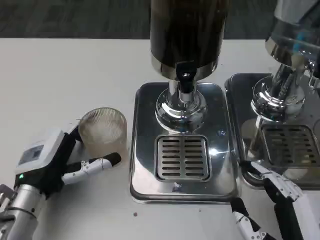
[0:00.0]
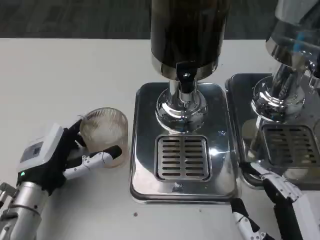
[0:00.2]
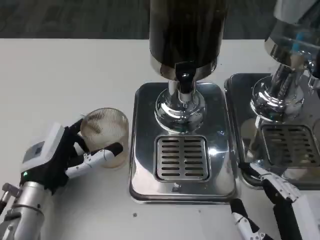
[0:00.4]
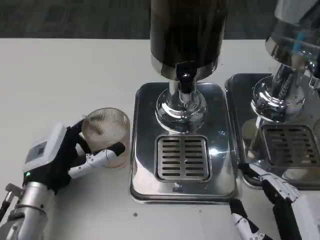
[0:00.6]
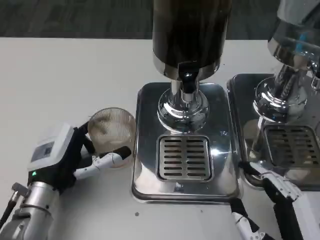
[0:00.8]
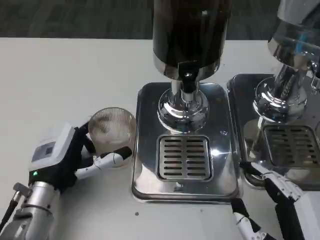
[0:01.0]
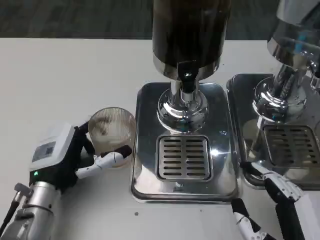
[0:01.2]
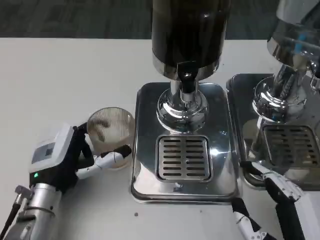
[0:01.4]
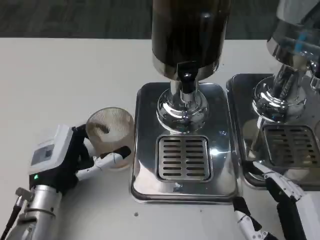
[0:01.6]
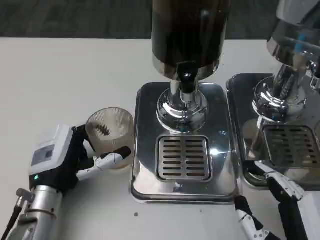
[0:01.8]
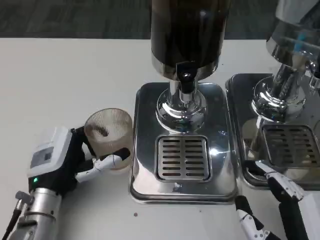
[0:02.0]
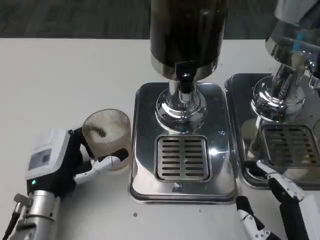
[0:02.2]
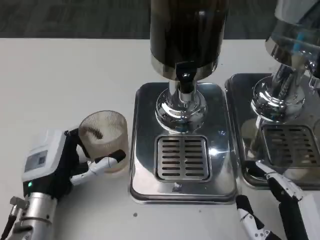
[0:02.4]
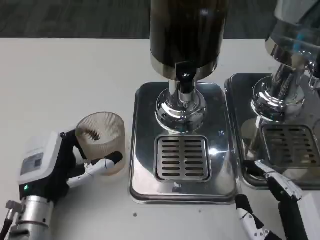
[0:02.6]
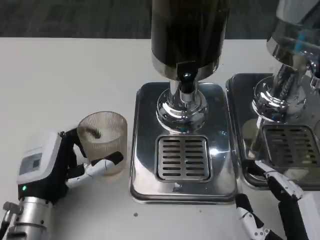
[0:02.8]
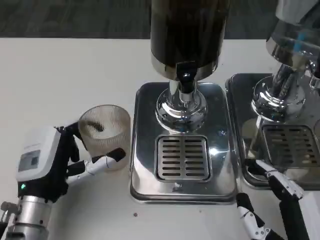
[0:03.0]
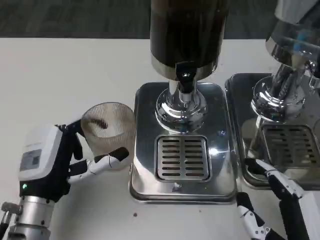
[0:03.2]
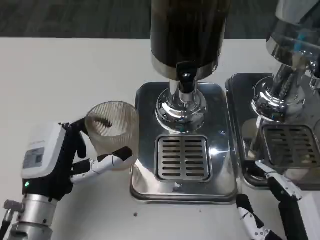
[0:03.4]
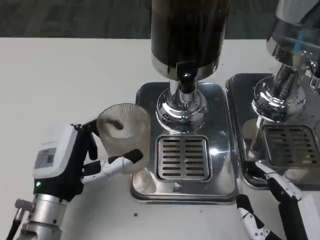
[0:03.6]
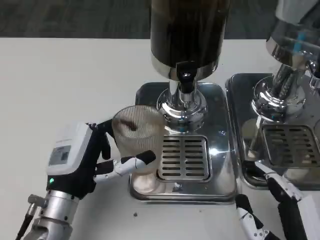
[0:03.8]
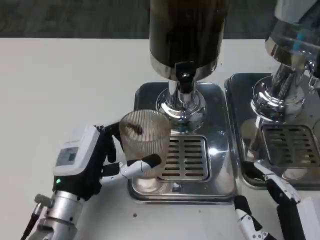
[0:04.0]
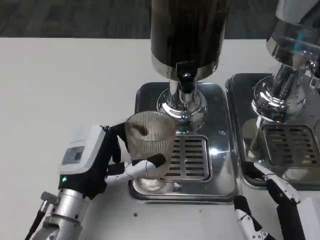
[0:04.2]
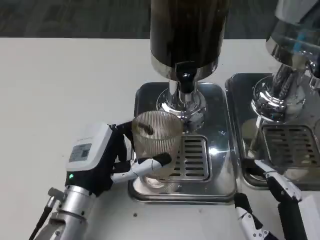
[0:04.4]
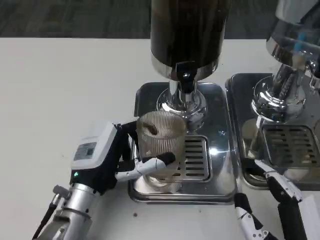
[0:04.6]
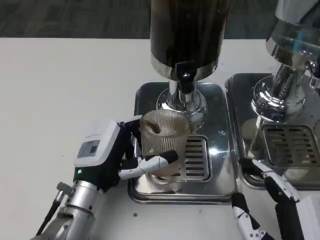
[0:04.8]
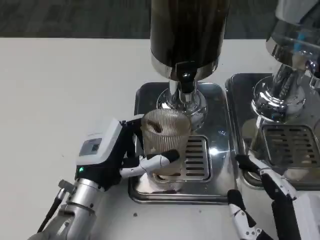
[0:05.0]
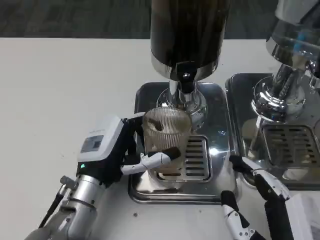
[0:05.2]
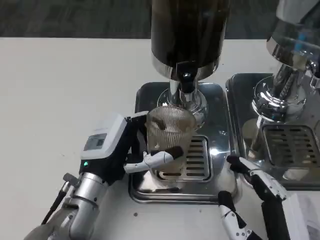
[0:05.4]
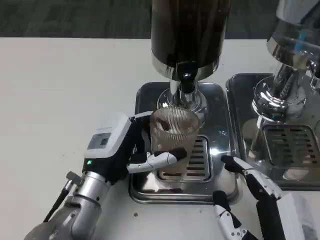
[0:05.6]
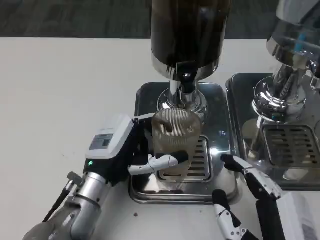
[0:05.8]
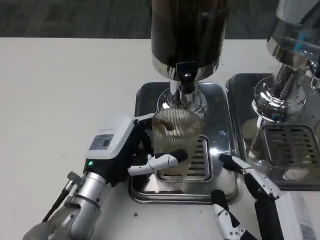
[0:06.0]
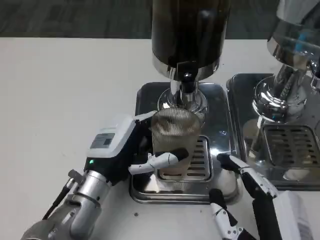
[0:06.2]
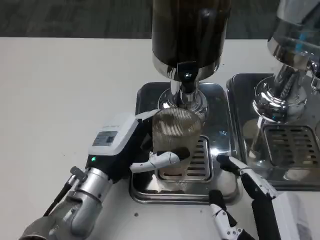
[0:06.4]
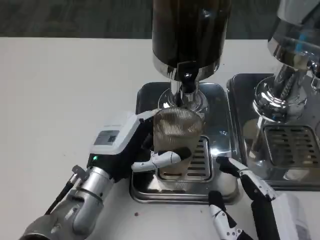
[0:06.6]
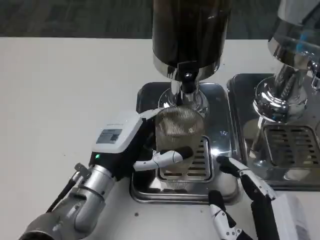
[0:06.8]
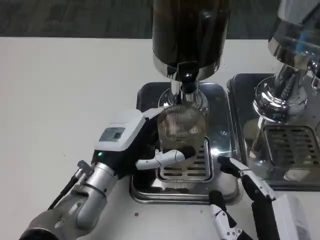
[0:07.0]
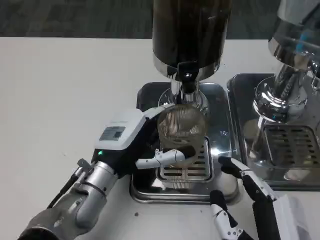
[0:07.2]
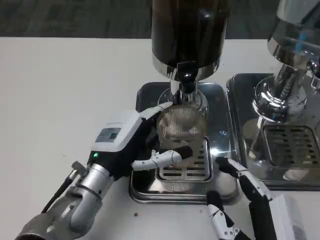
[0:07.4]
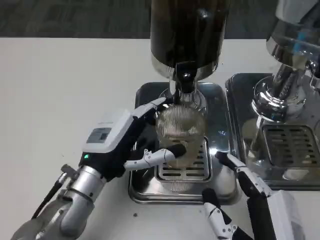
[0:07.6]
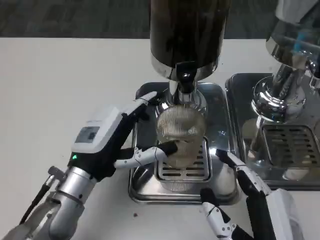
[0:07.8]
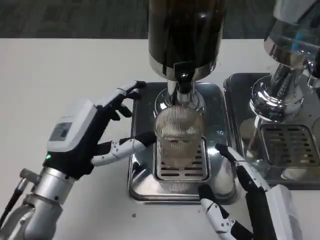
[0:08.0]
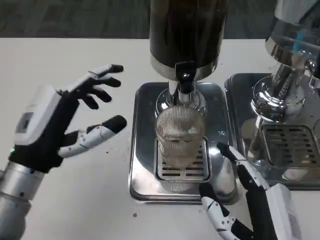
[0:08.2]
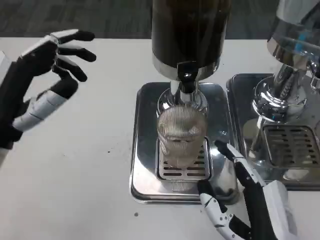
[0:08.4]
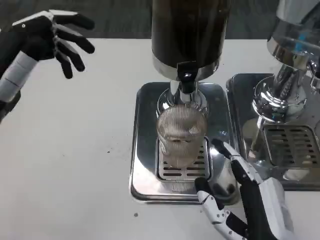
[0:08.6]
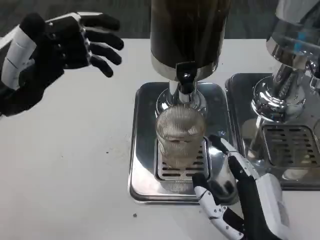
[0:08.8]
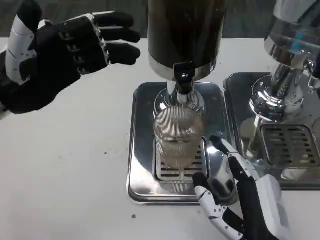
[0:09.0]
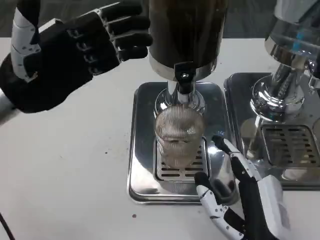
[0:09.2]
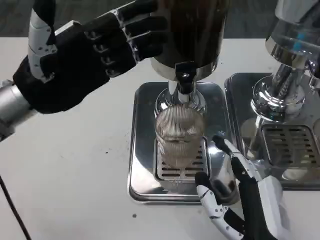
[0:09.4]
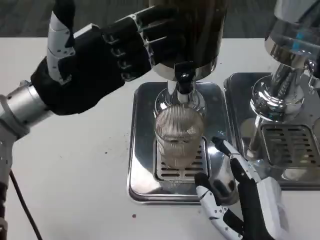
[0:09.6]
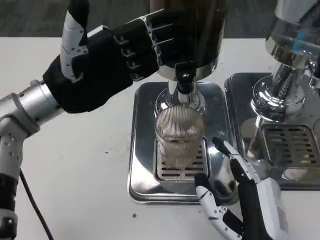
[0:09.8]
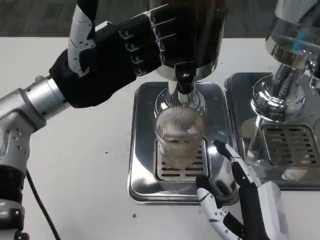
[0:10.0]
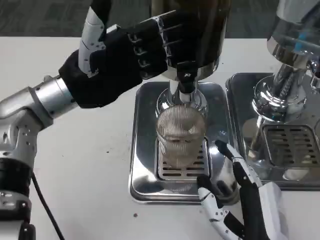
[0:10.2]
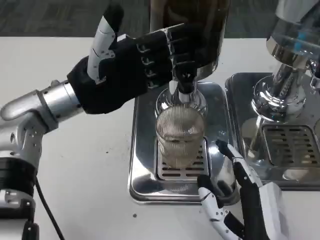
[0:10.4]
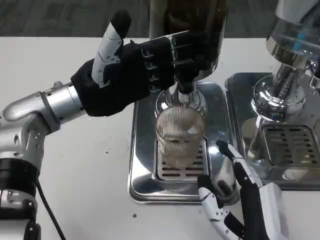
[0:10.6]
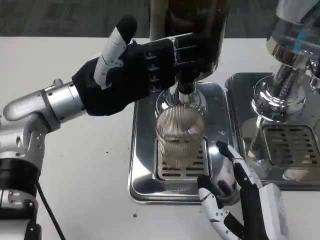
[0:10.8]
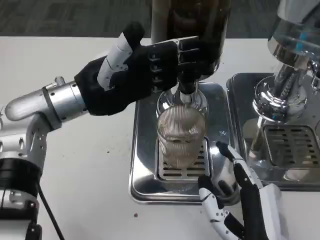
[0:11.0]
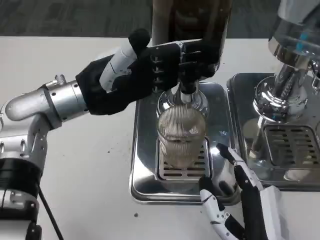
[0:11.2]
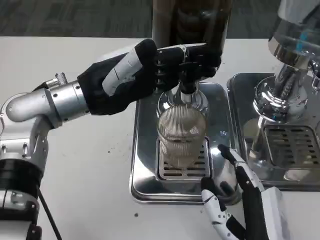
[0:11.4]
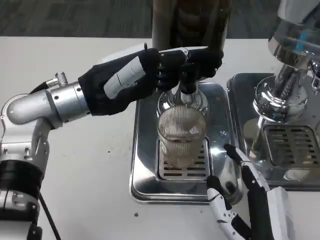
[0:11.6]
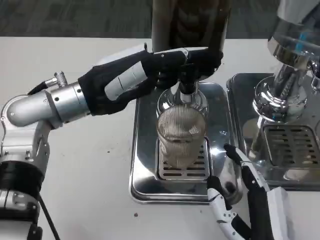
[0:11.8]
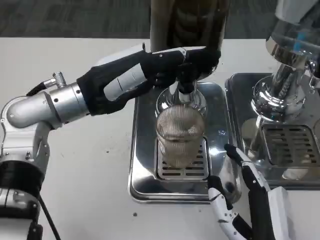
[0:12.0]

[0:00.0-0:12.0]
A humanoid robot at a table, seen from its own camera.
Task of the whole recording: Grasp the cup under the faucet to collect the drink, then remove the cup.
0:00.0 to 0:03.0: The hands make only small movements.
0:03.0 to 0:04.4: The left hand shifts some 5 cm to the right.
0:06.0 to 0:07.6: The hands make only small movements.
0:07.6 to 0:09.0: The left hand shifts roughly 20 cm upward and to the left.
0:09.0 to 0:10.4: The left hand travels to the right by some 5 cm.

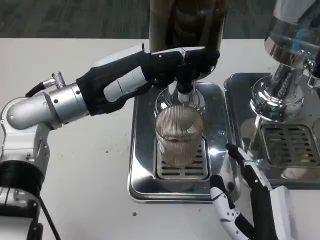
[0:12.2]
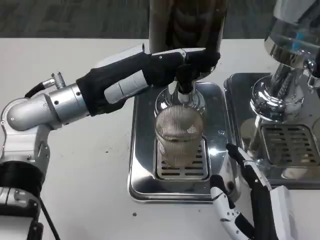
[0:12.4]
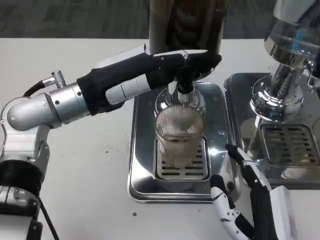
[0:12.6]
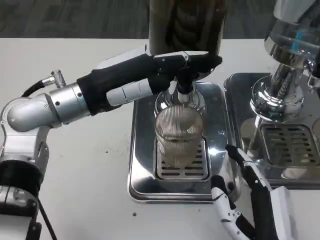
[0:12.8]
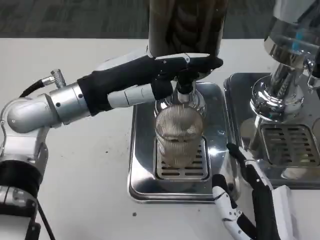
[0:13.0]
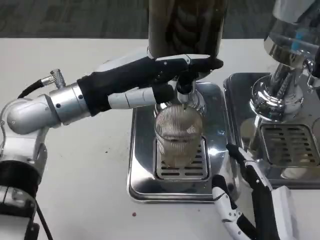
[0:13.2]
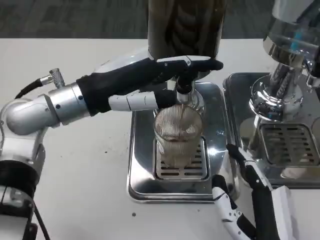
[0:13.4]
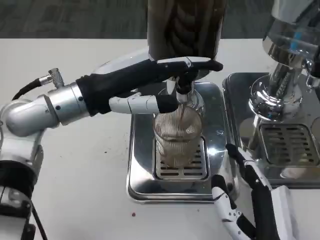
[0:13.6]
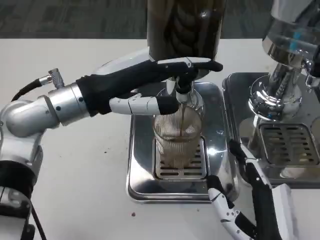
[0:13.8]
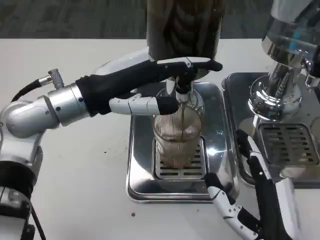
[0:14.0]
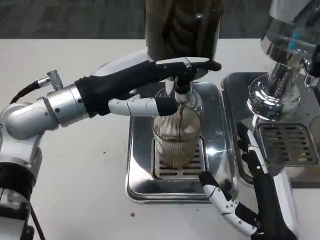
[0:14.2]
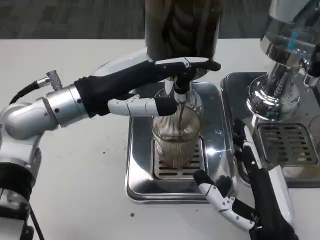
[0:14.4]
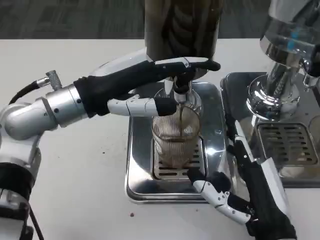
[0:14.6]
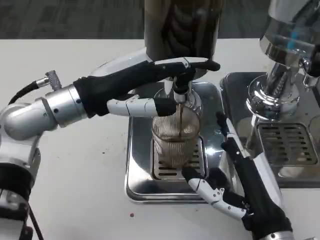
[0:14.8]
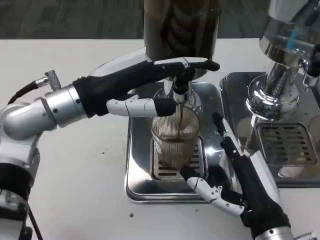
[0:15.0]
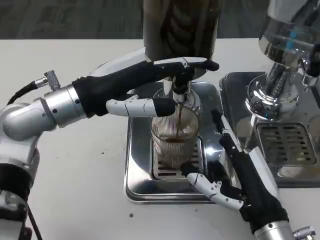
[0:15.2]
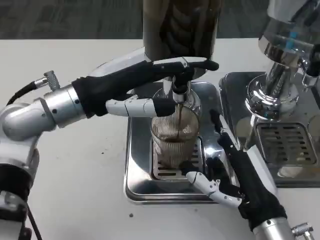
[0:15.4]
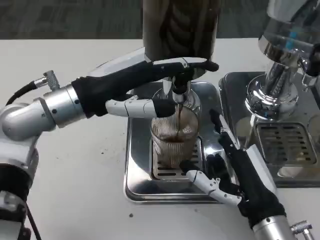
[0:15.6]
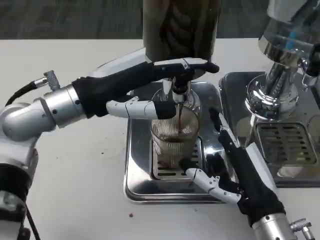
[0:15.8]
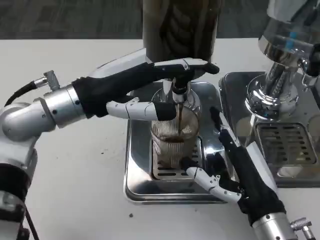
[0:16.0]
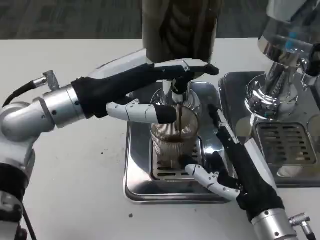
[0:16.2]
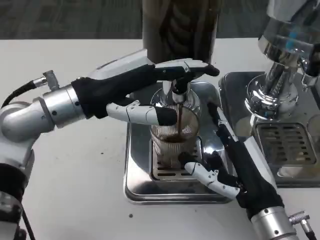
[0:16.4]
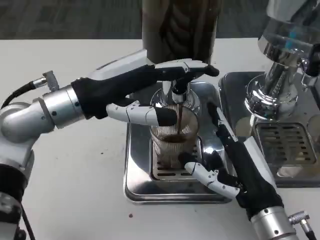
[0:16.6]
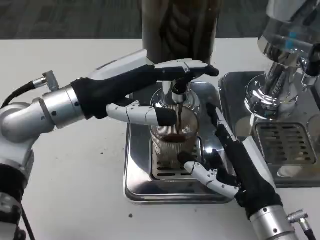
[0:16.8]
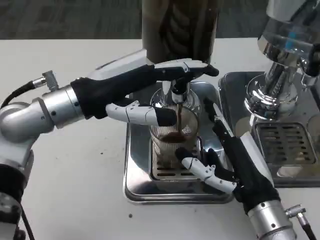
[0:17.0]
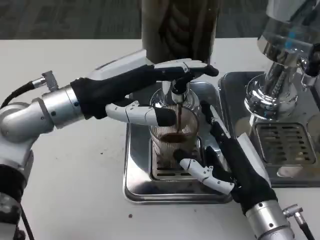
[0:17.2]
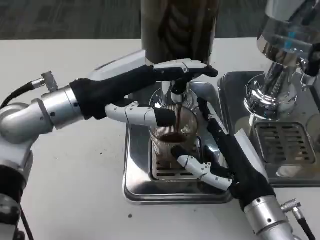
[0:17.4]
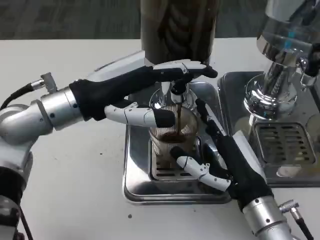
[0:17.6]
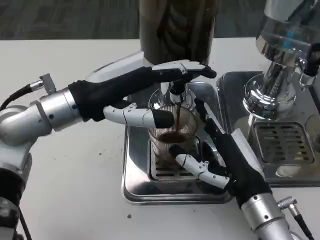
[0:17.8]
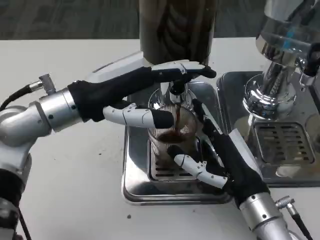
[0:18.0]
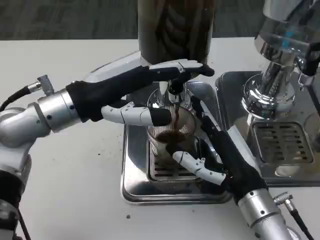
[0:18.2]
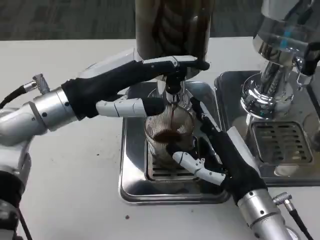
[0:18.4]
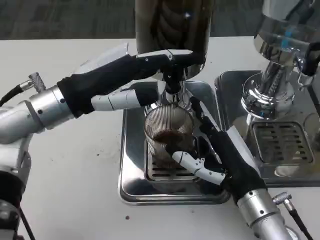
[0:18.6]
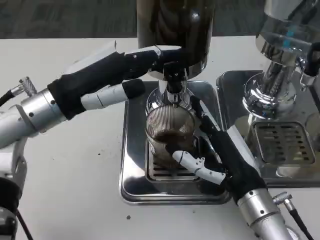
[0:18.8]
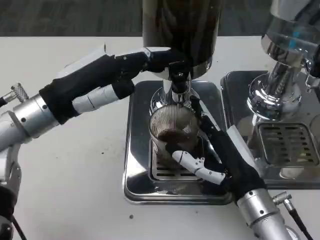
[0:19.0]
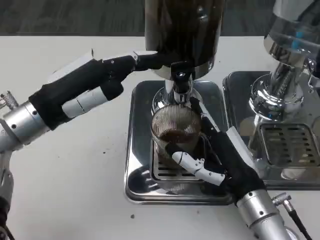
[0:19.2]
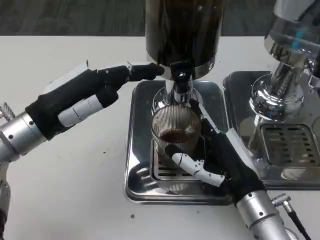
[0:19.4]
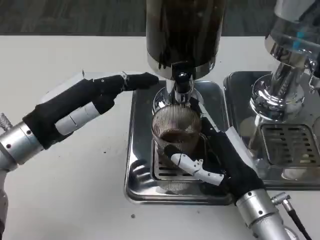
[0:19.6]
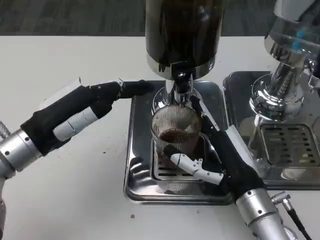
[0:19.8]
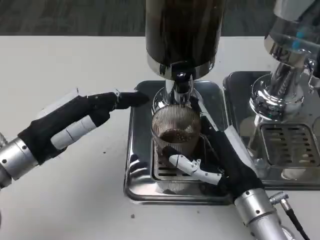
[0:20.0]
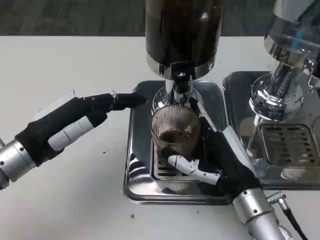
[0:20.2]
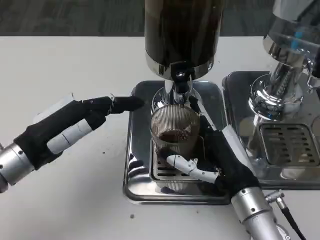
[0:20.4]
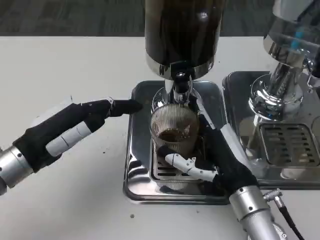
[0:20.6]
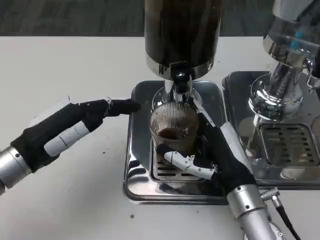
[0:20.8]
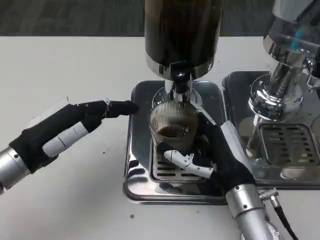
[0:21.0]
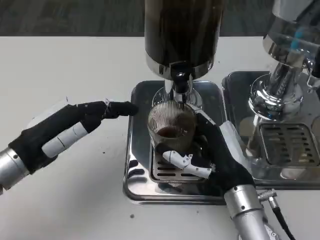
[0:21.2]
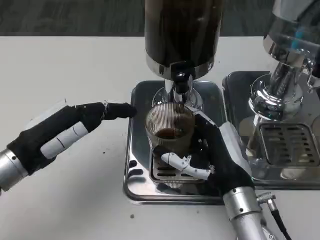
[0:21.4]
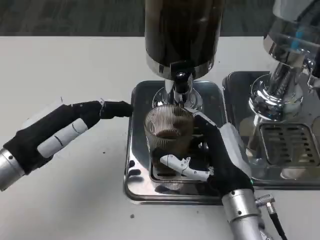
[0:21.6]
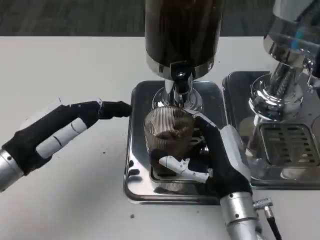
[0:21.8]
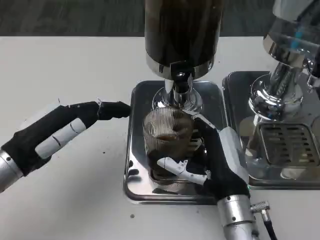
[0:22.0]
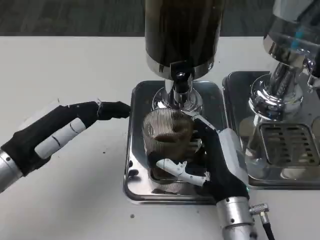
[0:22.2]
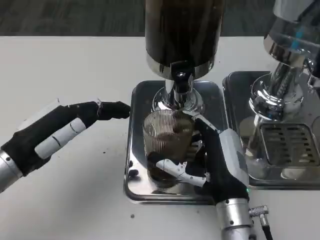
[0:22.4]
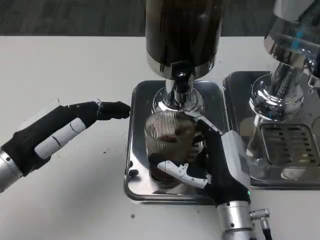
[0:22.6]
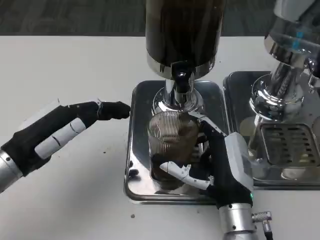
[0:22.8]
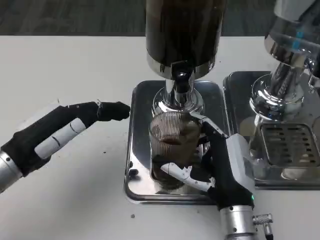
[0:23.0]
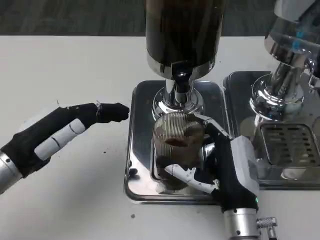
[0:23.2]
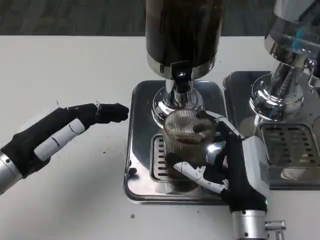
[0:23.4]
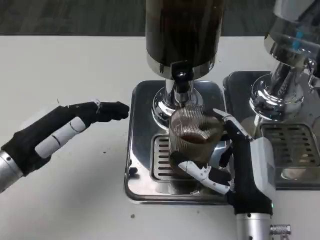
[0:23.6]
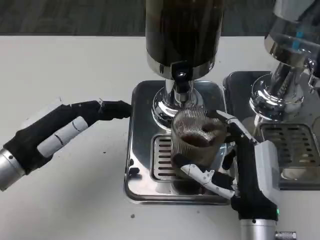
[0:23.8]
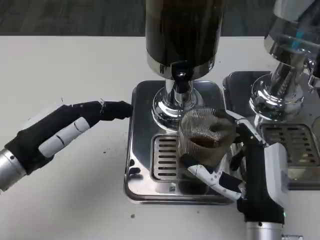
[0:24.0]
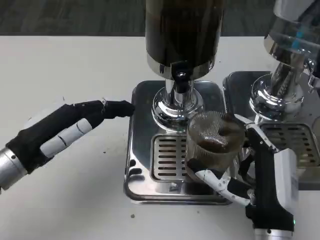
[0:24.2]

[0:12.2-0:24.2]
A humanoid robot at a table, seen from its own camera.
Task of the whole recording: Grasp the cup under the faucet to collect the drink, then remove the cup.
0:13.8 to 0:15.2: The right hand moves forward, roughly 5 cm.
0:15.2 to 0:16.6: The hands make only small movements.
0:18.2 to 0:19.8: The left hand travels to the left and downward by roughly 5 cm.
0:21.2 to 0:22.6: The hands move only a little.
0:22.6 to 0:24.2: The right hand moves roughly 5 cm.
